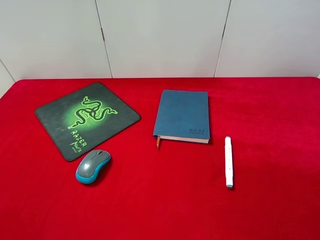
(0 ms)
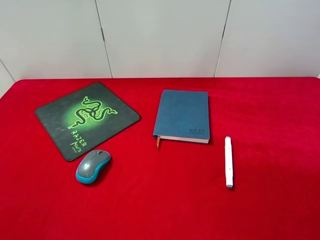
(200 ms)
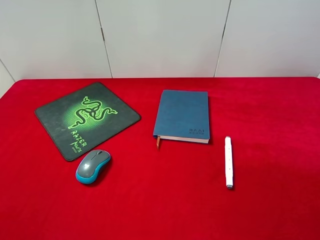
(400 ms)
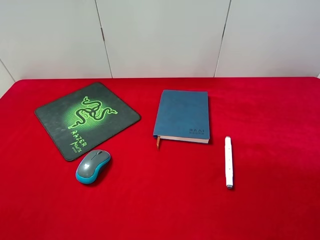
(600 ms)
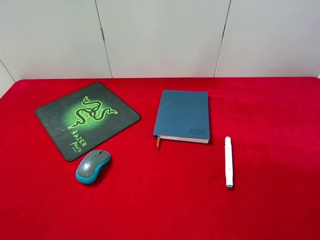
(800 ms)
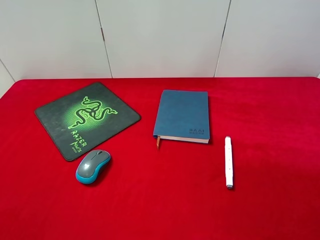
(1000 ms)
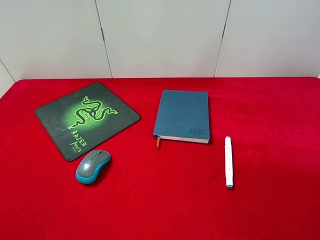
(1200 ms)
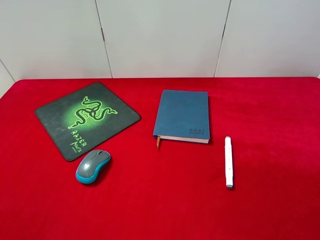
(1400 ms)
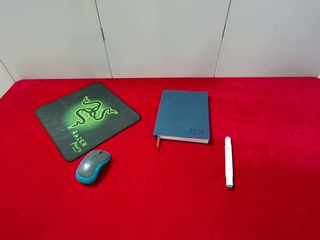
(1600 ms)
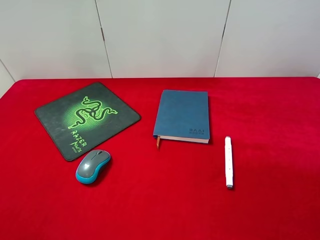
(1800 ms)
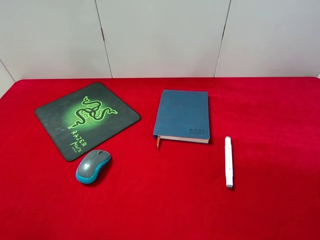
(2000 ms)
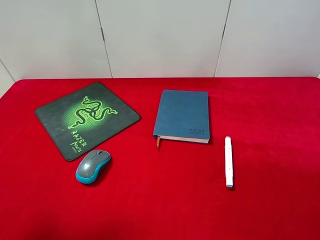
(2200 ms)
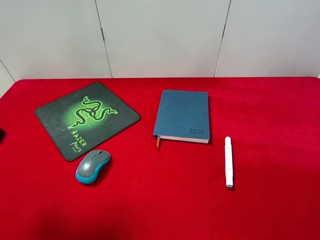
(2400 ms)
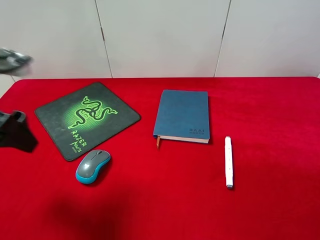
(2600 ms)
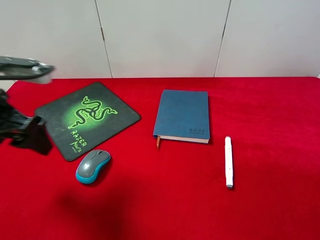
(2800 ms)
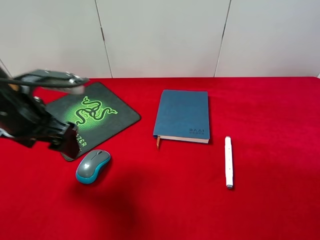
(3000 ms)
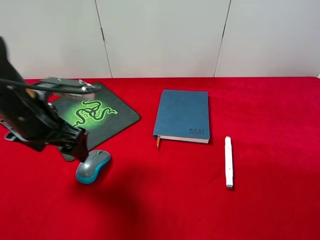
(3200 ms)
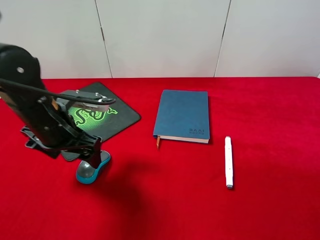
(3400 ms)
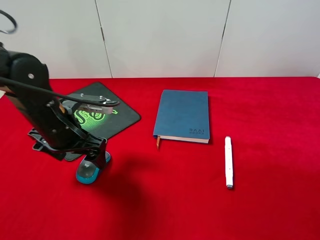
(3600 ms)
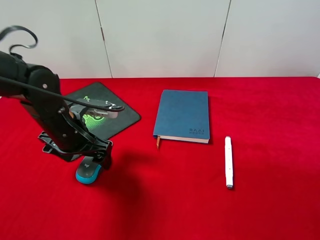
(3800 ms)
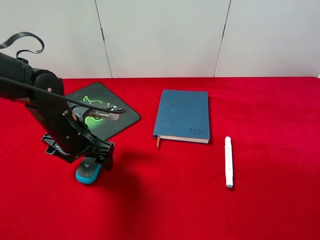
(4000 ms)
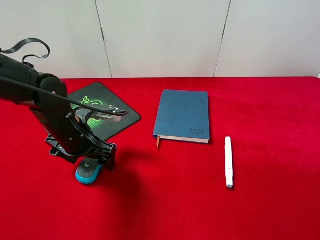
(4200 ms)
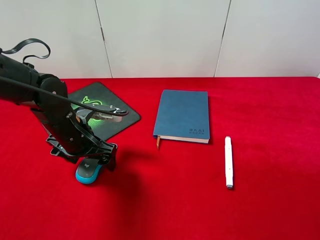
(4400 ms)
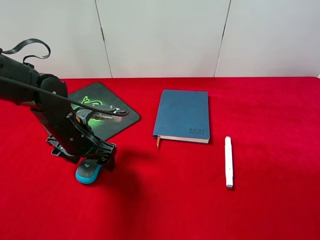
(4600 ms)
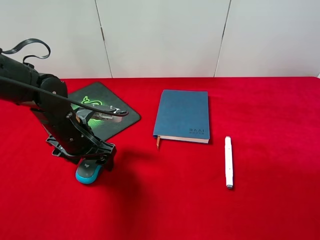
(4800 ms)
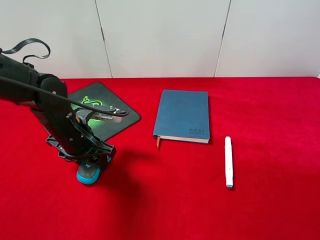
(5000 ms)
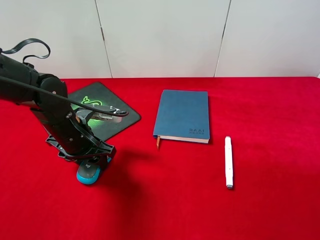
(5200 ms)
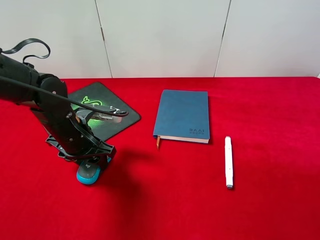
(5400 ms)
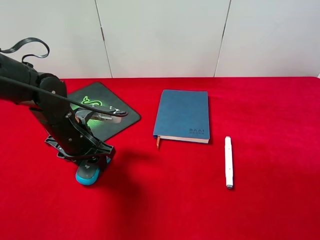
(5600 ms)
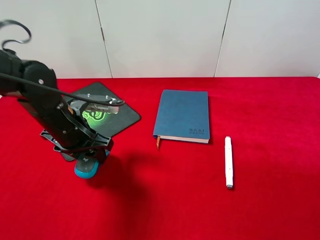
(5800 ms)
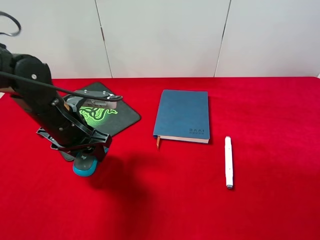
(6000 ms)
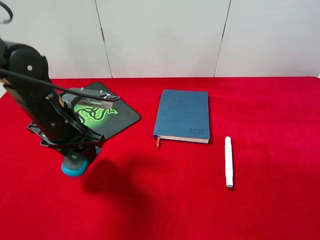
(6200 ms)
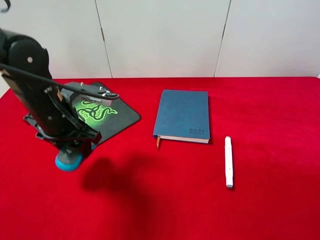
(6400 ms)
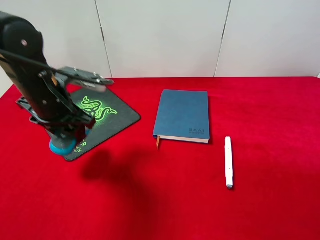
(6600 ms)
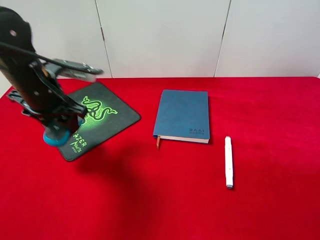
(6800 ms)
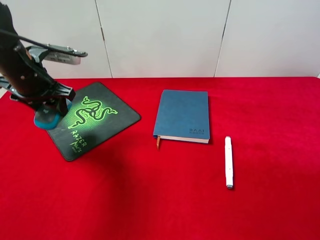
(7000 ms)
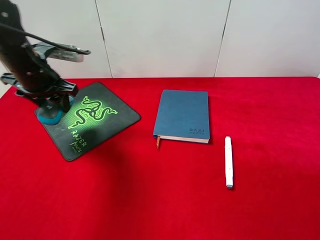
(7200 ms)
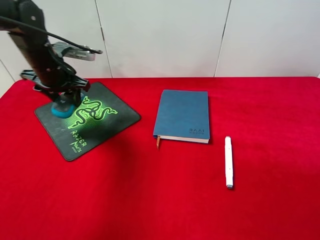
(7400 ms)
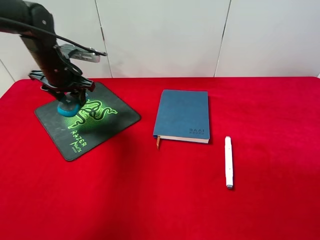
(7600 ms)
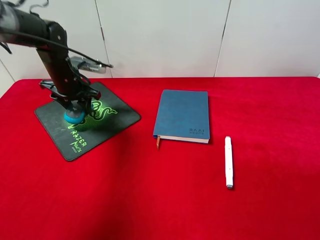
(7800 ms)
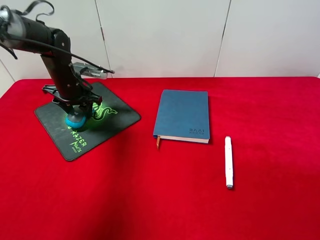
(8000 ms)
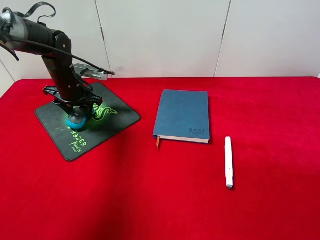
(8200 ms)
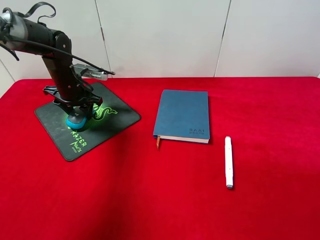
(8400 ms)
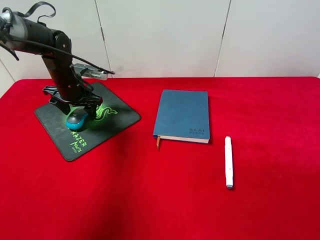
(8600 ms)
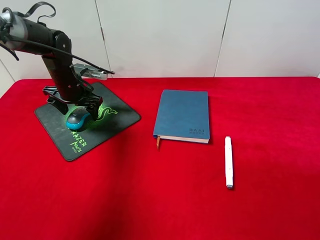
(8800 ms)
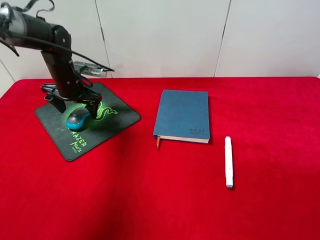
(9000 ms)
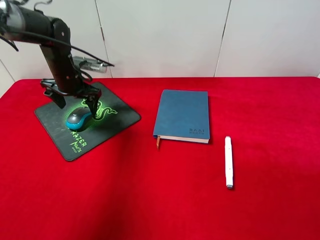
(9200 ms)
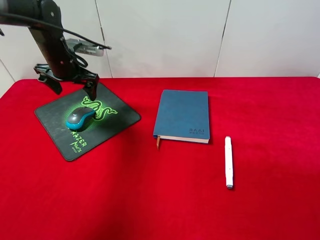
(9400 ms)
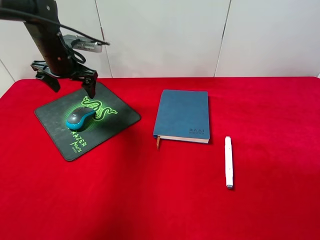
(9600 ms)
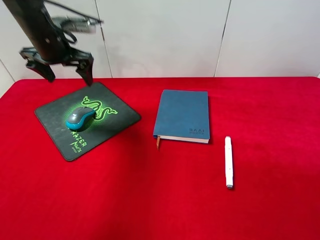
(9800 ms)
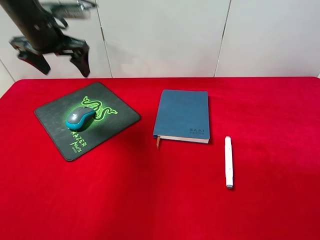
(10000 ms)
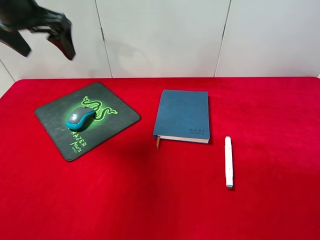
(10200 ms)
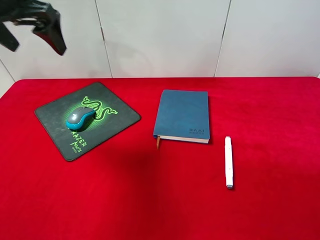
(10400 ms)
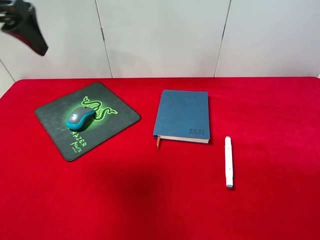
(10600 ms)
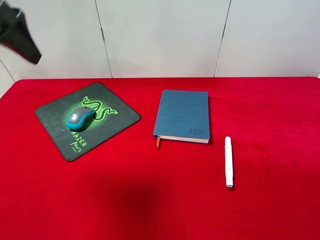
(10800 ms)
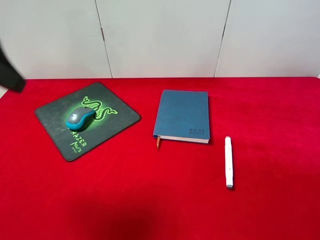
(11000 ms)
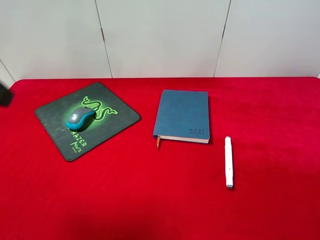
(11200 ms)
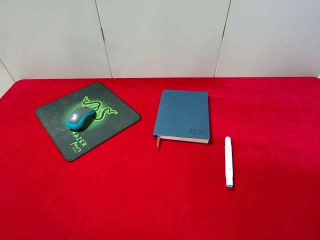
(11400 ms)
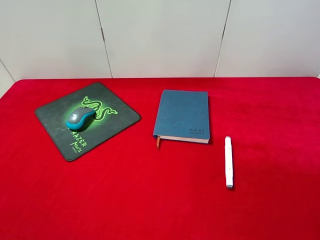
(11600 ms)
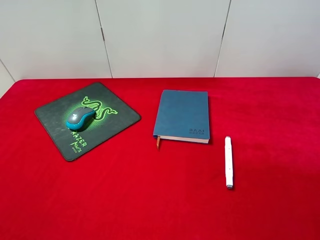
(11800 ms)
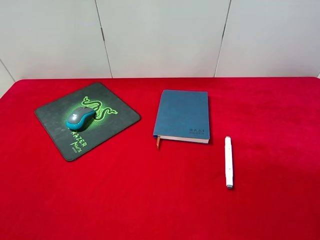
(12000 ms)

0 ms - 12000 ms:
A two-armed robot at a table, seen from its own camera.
Step, 0 ms - 6400 ms: Pick up the mouse with left gripper.
Step, 6600 ms - 9200 ms: Place the mouse on the mouse pad with left gripper.
1600 ms - 3000 ms: The left gripper moves forward, to the right and downward, roughly 25 cm.
3000 ms - 4400 ms: The left gripper moves downward, about 10 cm.
4400 ms - 6000 ms: The left gripper closes its fingers.
6000 ms - 7600 ms: The left gripper is displaced forward by approximately 15 cm.
7600 ms - 9000 ms: The left gripper opens.
9000 ms - 10400 ms: The left gripper travels upward and backward by roughly 25 cm.
10400 ms - 12000 ms: The left gripper goes approximately 30 cm backward.

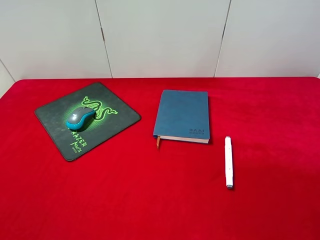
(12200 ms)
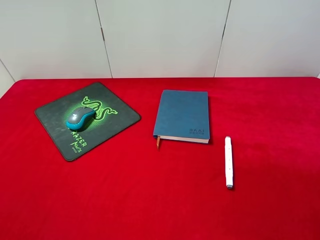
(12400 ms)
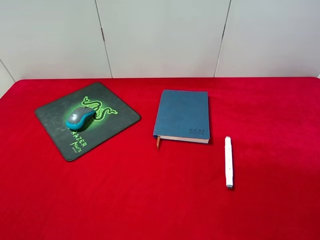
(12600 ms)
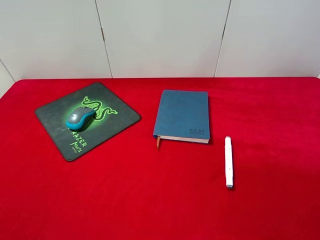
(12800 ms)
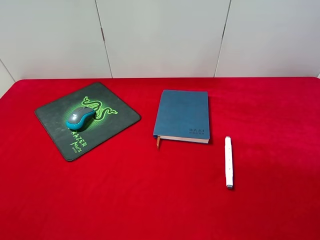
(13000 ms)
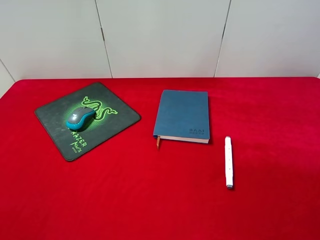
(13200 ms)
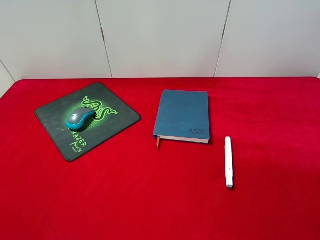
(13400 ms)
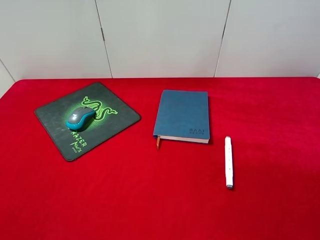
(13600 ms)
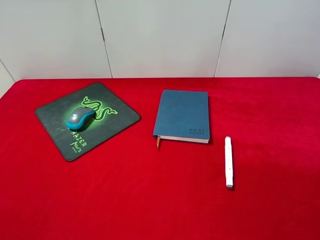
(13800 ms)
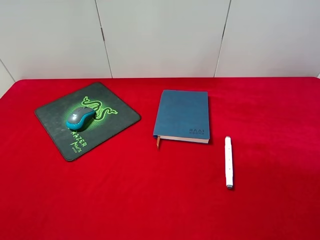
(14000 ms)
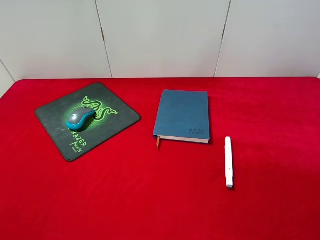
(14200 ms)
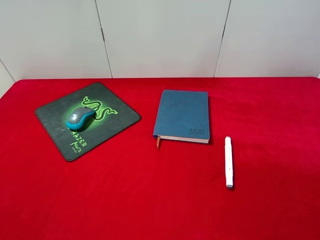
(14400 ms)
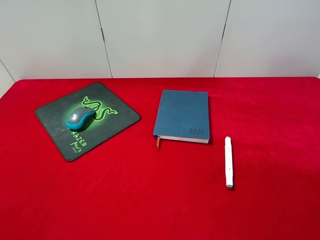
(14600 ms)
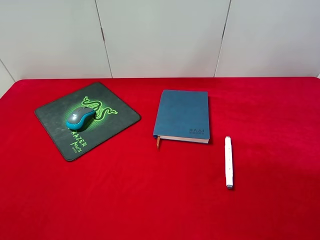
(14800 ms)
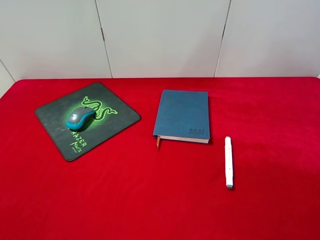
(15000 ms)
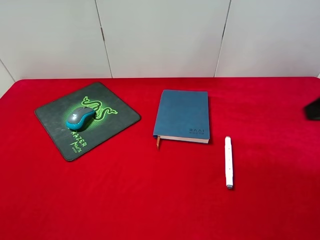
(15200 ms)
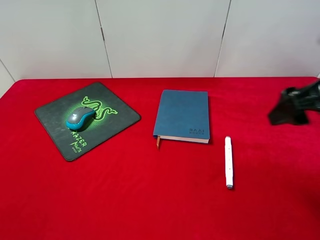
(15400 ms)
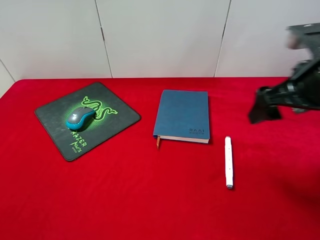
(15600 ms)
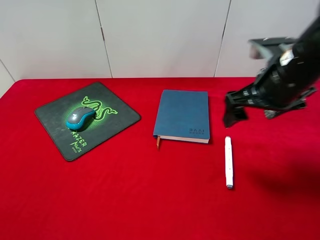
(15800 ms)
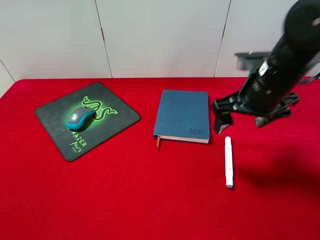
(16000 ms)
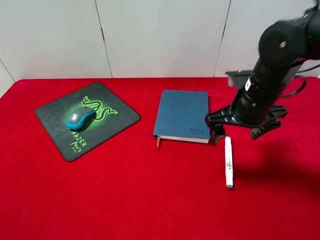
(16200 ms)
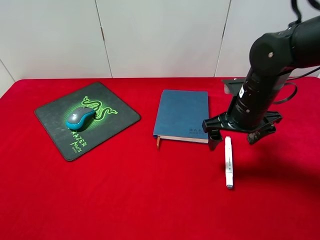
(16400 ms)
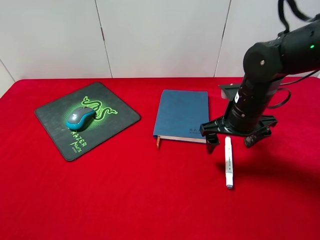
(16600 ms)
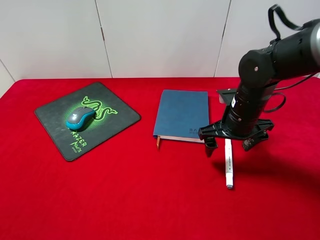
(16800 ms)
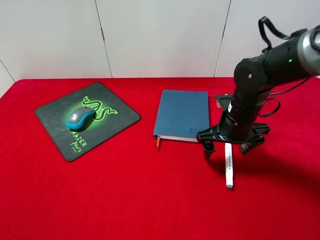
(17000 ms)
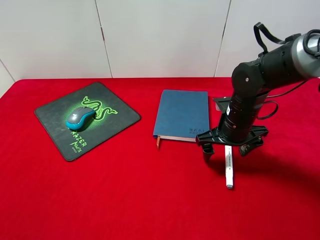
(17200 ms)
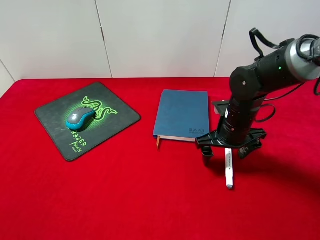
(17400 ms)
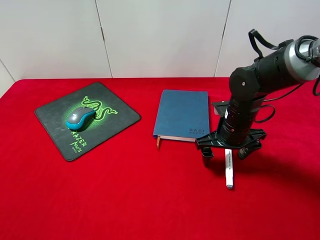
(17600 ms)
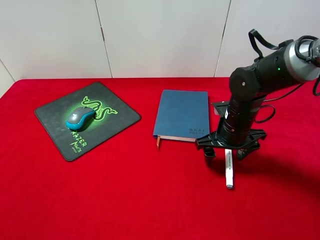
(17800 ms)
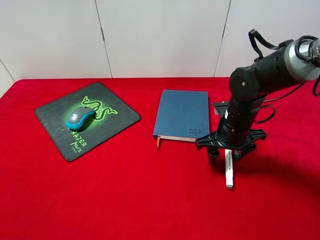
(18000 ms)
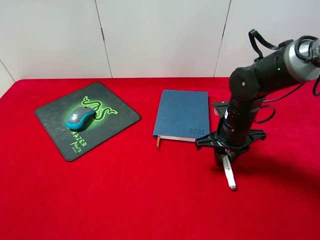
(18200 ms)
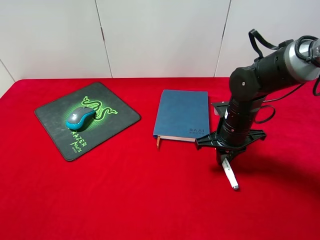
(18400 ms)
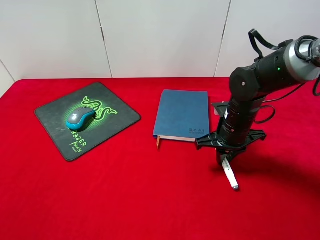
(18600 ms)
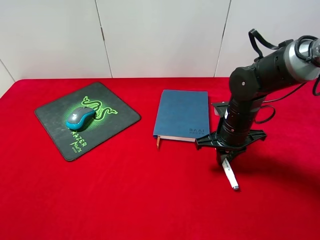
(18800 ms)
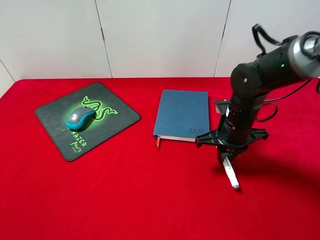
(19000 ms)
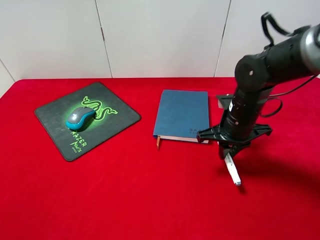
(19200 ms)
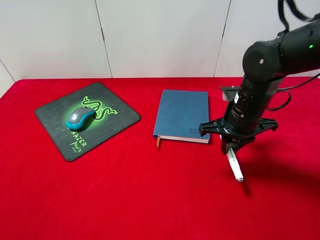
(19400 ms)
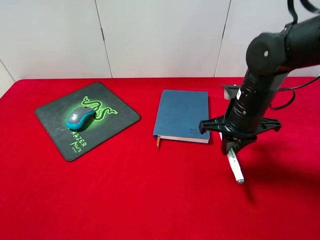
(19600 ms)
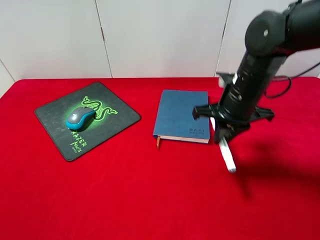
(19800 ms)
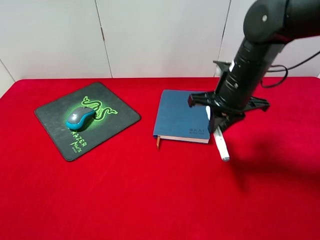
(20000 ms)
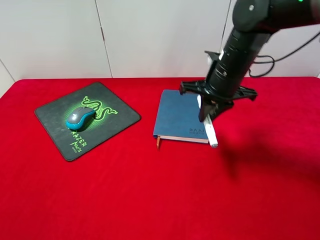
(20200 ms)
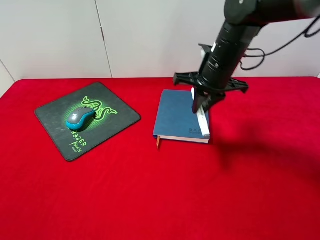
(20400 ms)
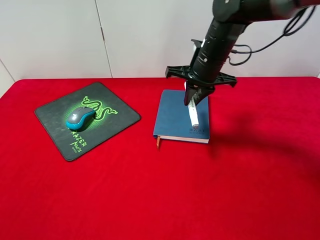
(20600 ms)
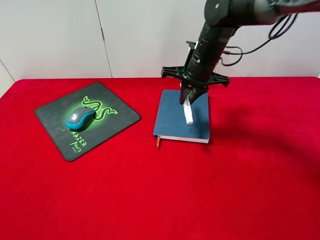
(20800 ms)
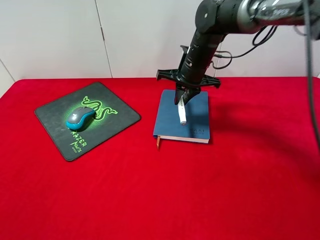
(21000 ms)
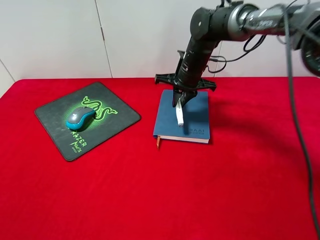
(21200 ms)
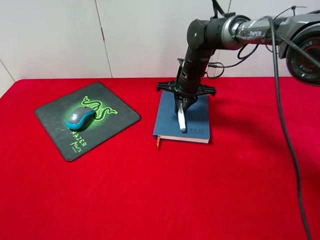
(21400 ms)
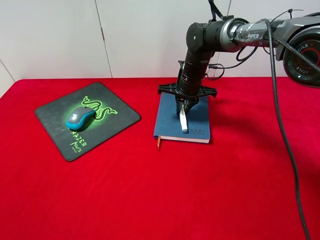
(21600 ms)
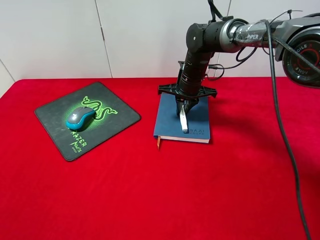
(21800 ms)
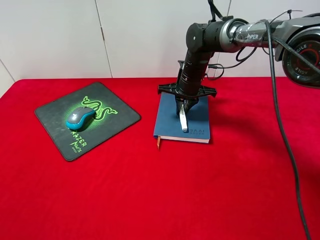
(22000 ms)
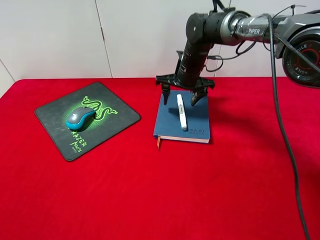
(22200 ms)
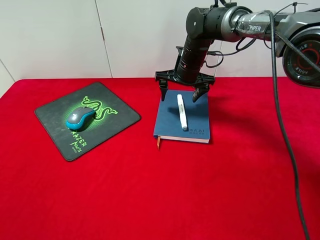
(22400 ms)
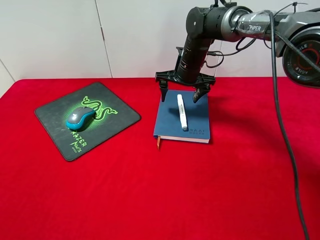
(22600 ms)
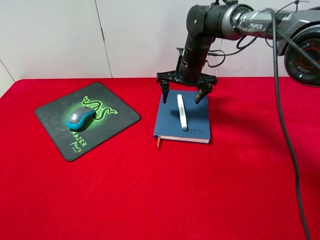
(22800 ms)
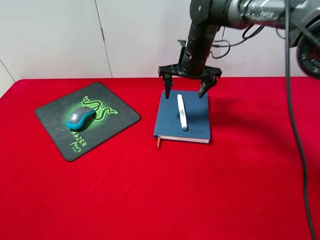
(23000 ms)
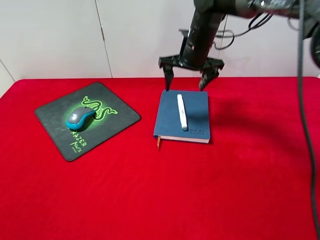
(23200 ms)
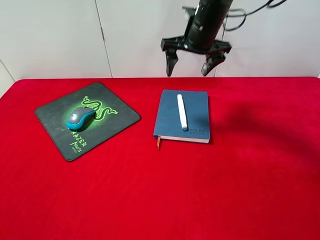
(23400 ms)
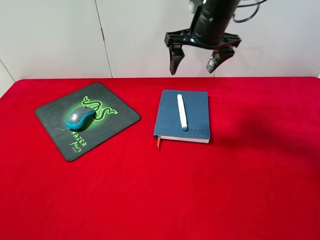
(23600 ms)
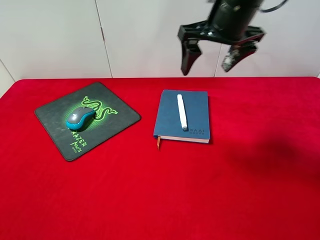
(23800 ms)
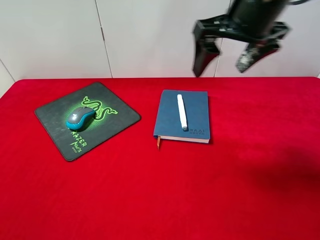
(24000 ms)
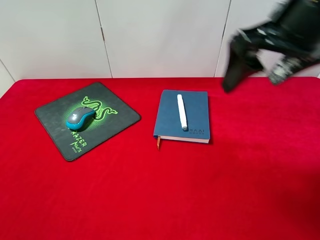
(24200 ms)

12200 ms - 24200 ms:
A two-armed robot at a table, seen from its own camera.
Step, 12200 ms - 19600 ms: Pick up the marker pen with right gripper.
Step, 19800 ms - 22400 ms: Place the marker pen on the notebook with right gripper.
15200 ms - 16600 ms: The right gripper moves downward, forward and to the left, some 25 cm.
16600 ms - 18200 ms: The right gripper closes up.
18200 ms - 19800 ms: The right gripper heads upward, covering some 10 cm.
19800 ms - 21200 ms: The right gripper moves forward and to the left, about 15 cm.
21200 ms - 22600 ms: The right gripper opens its fingers.
22600 ms - 24200 ms: The right gripper moves backward, upward and to the right, roughly 30 cm.
